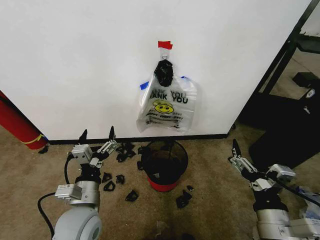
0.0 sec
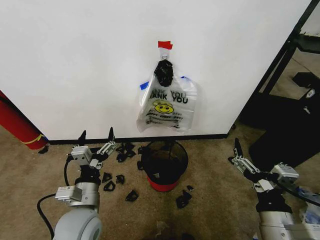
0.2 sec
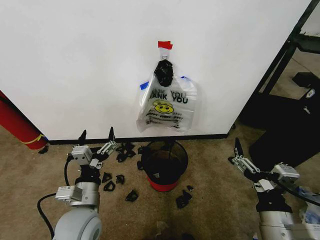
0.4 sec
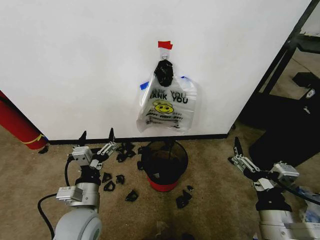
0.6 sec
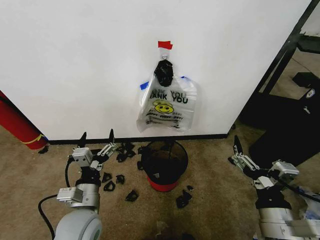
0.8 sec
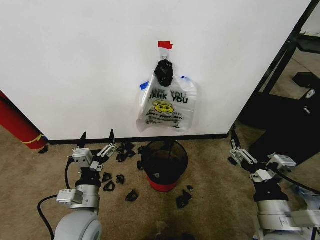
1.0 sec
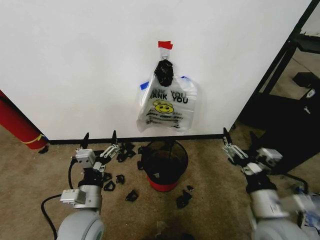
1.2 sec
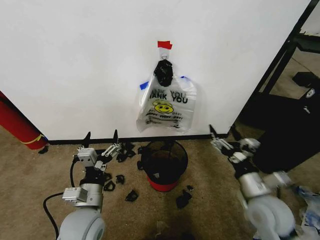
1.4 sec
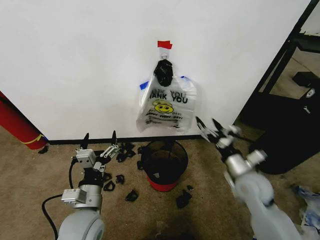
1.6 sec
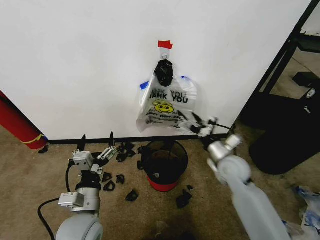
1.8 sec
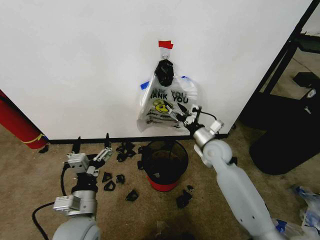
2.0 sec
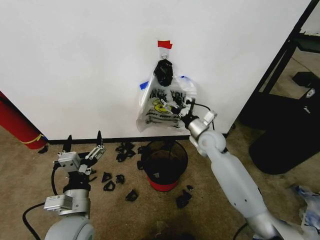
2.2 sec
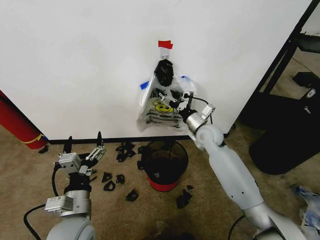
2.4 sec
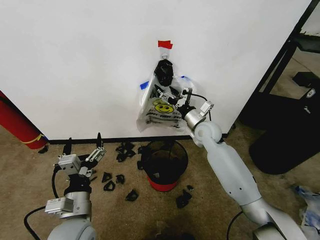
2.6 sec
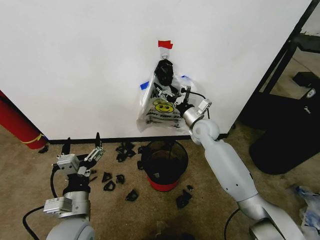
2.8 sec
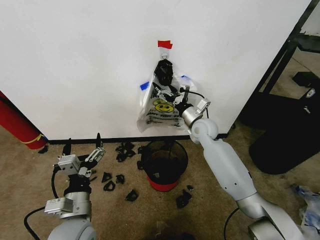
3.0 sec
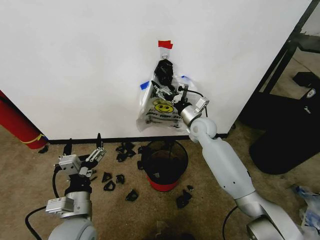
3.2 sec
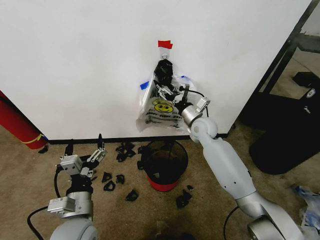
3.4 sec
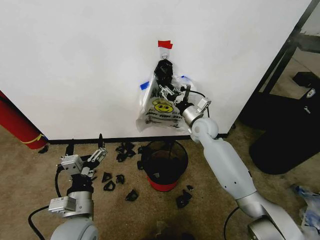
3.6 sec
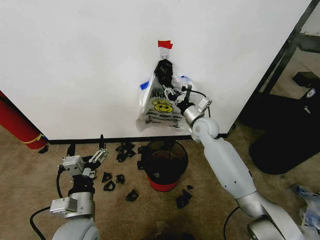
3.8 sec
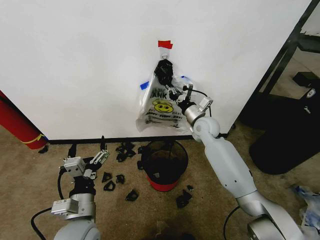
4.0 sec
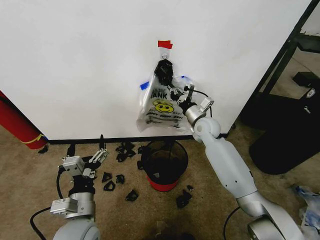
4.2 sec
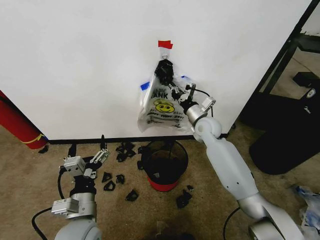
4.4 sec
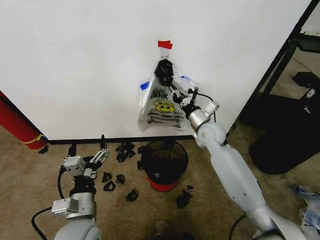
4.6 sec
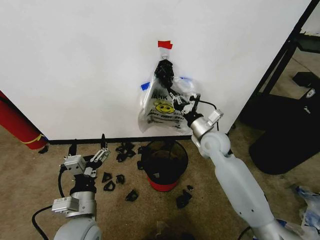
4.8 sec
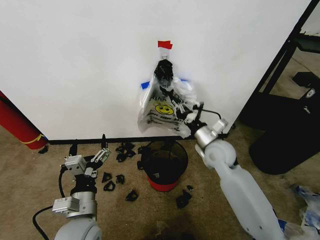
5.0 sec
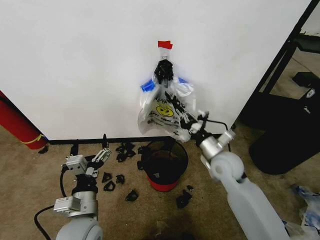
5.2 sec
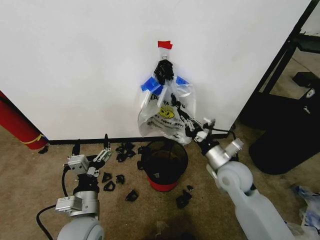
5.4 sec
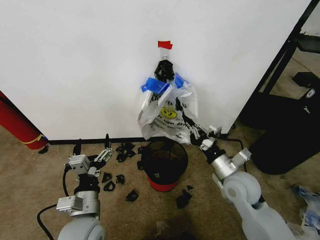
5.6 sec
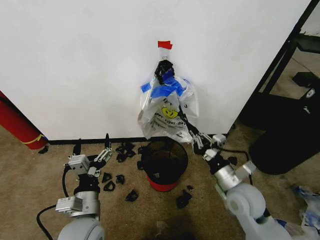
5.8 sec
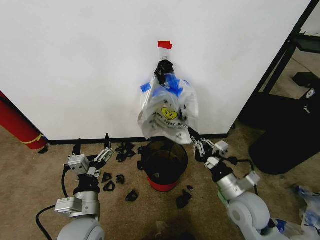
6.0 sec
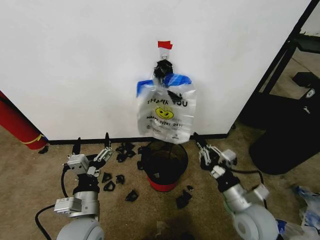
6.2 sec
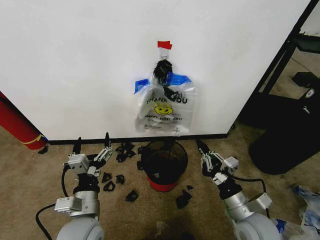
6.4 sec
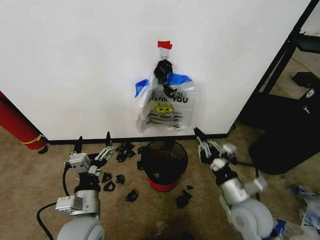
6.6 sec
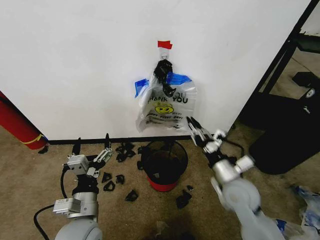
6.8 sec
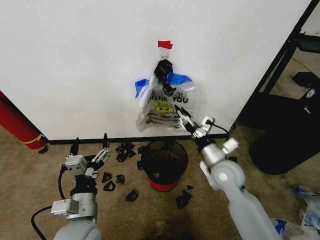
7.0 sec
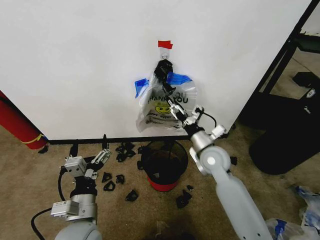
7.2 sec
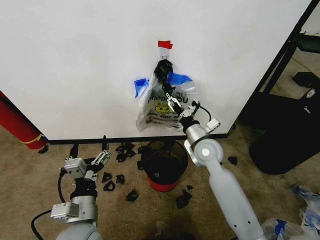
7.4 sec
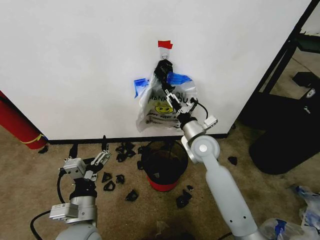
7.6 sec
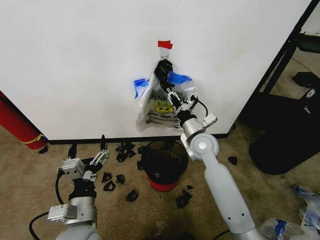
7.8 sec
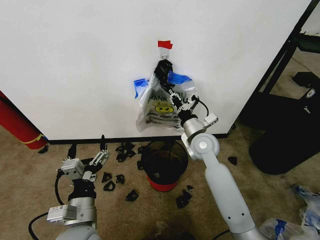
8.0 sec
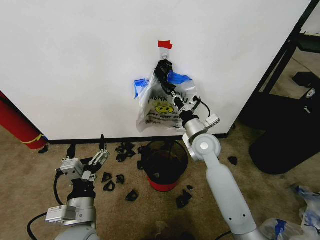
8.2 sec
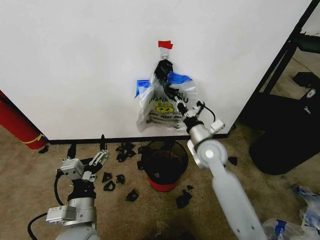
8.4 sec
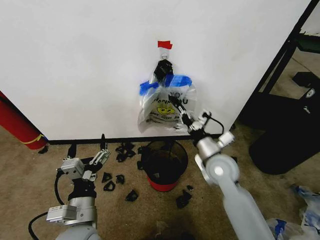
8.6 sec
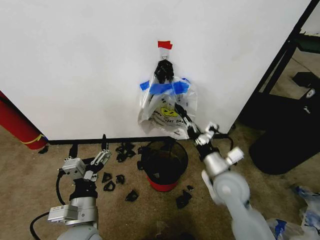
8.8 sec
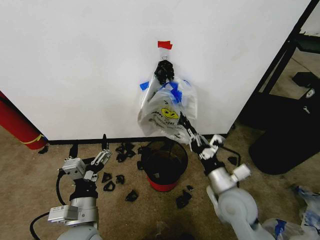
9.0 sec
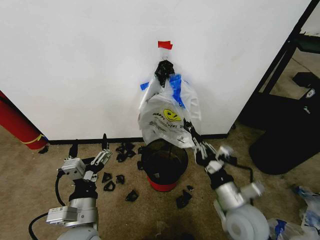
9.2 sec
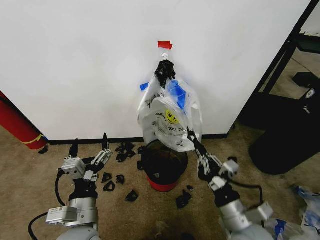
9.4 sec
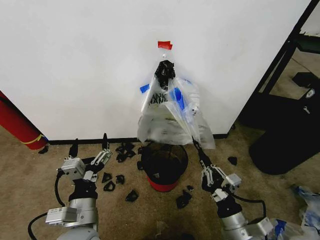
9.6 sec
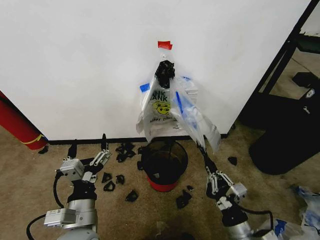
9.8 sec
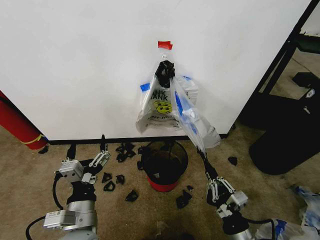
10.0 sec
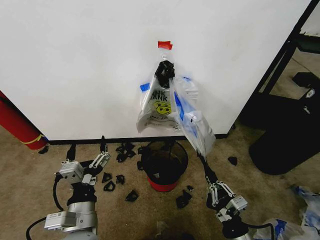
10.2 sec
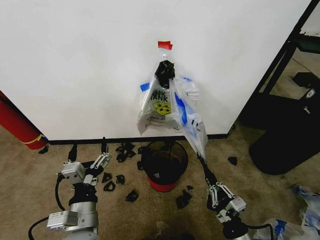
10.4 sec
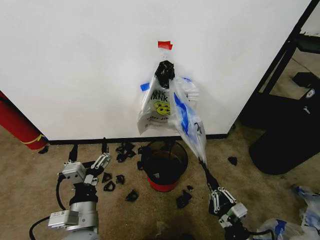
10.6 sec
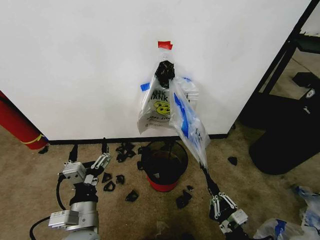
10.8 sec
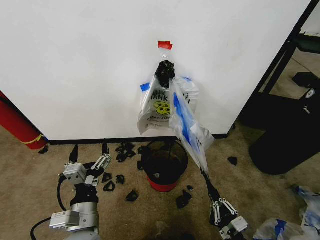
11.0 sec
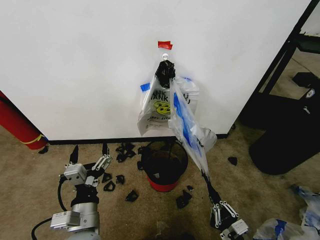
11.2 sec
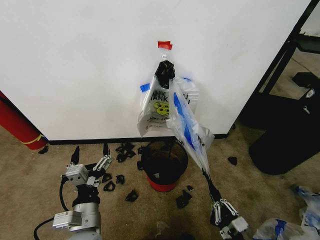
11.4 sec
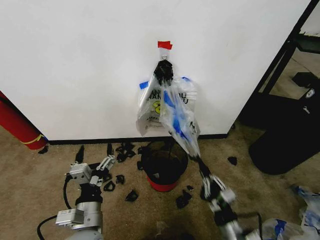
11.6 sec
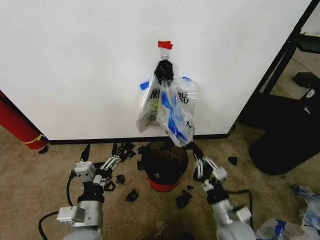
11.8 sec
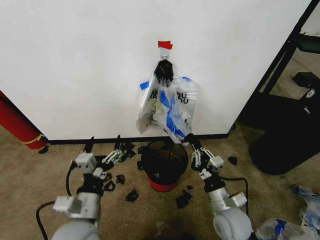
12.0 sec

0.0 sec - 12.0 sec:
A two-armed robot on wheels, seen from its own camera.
Task of the whole recording: Pick up the garbage bag from the wall and place it over the trash bin.
1.6 sec - 3.0 sec: The right gripper heads forward and to the left, covering approximately 25 cm.
3.0 sec - 4.4 sec: The right gripper closes up.
4.4 sec - 6.0 sec: The right gripper travels backward by approximately 25 cm.
6.0 sec - 7.6 sec: The right gripper is displaced forward and to the left by roughly 20 cm, and opens its fingers.
7.6 sec - 9.0 sec: The right gripper goes roughly 20 cm backward, and closes its fingers.
9.0 sec - 10.4 sec: The right gripper moves backward and downward, approximately 15 cm.
10.4 sec - 12.0 sec: The right gripper travels forward by about 10 cm.

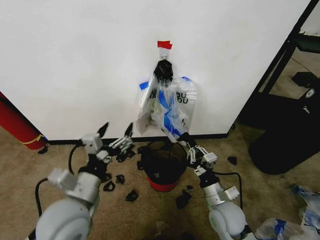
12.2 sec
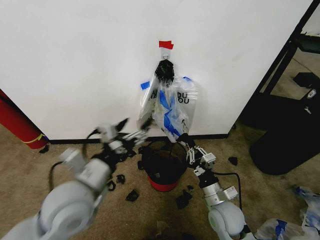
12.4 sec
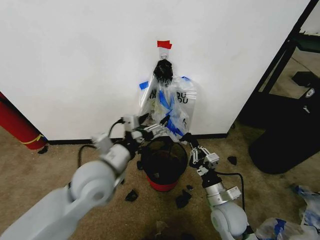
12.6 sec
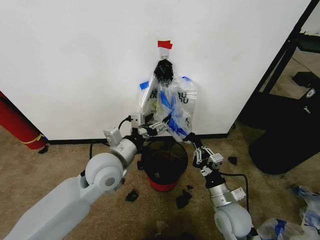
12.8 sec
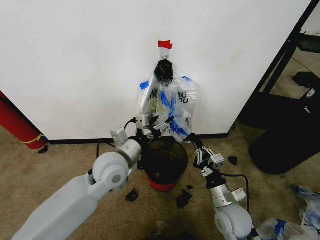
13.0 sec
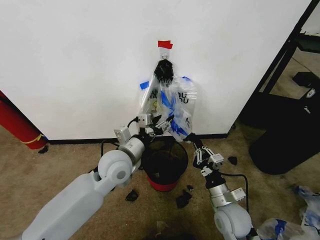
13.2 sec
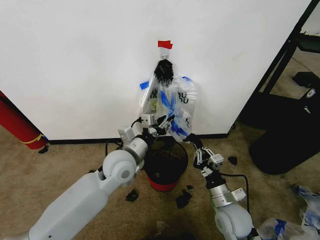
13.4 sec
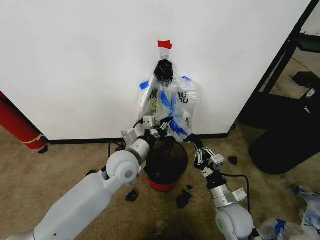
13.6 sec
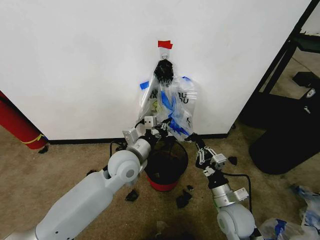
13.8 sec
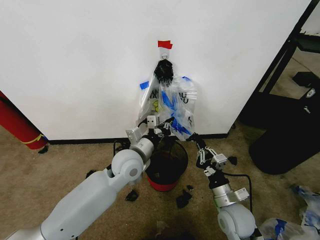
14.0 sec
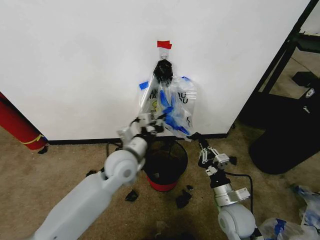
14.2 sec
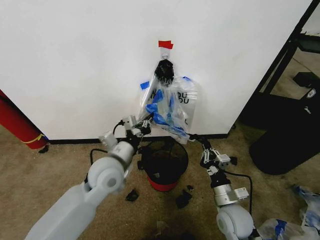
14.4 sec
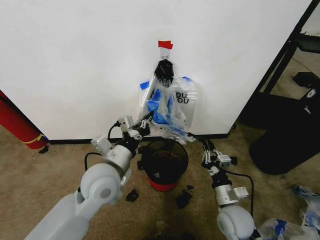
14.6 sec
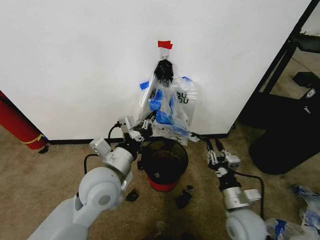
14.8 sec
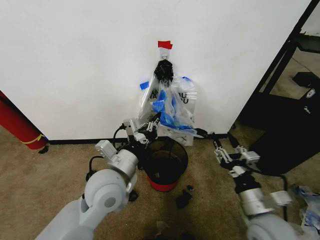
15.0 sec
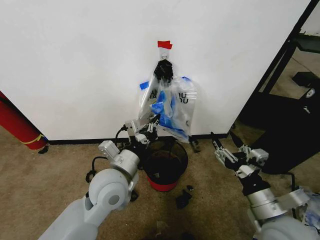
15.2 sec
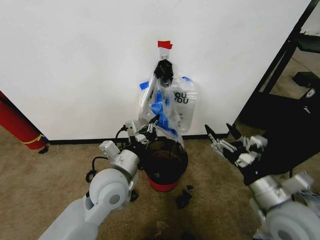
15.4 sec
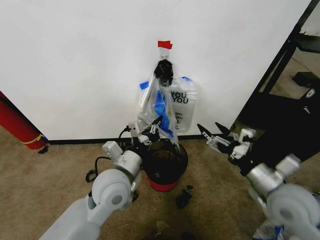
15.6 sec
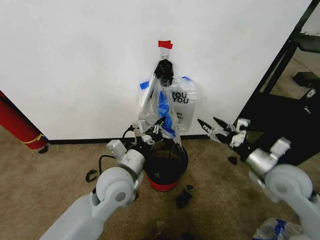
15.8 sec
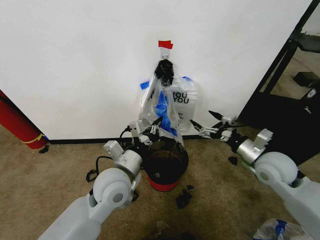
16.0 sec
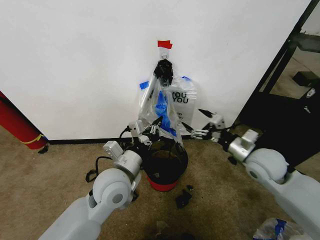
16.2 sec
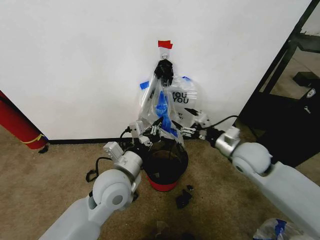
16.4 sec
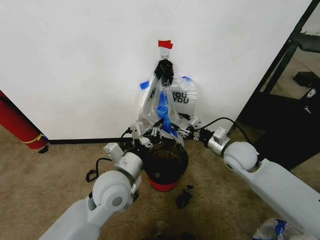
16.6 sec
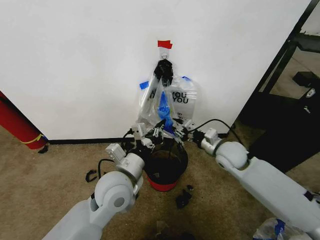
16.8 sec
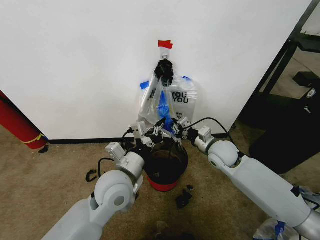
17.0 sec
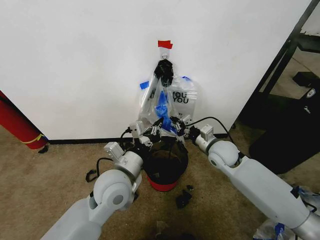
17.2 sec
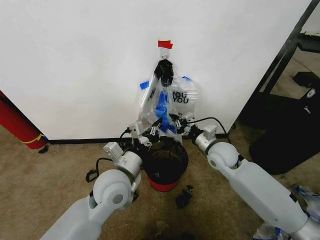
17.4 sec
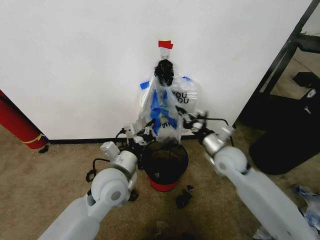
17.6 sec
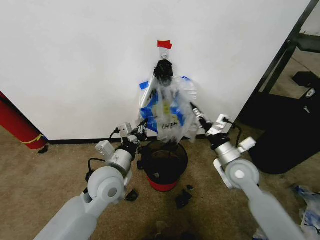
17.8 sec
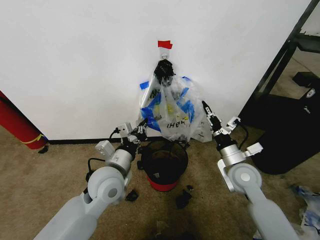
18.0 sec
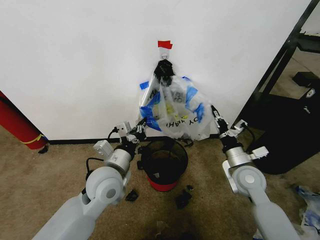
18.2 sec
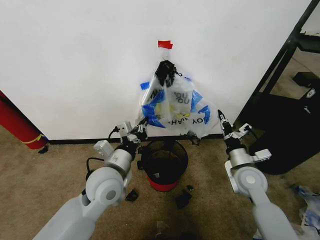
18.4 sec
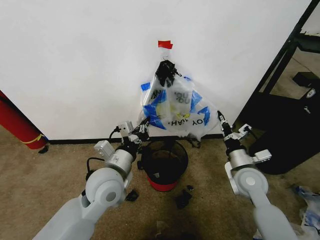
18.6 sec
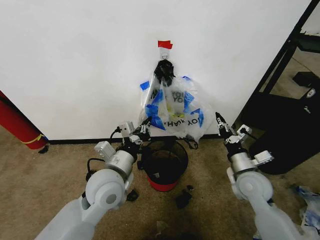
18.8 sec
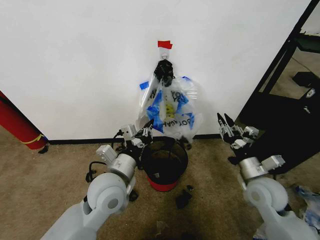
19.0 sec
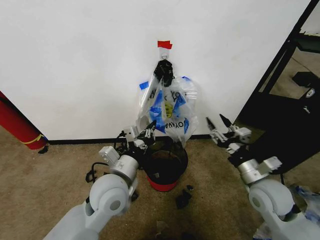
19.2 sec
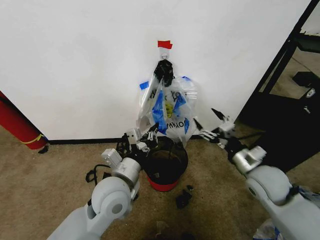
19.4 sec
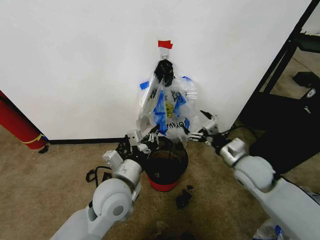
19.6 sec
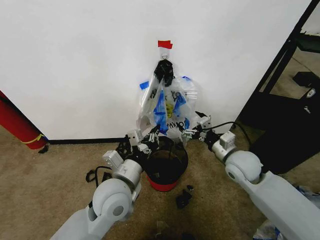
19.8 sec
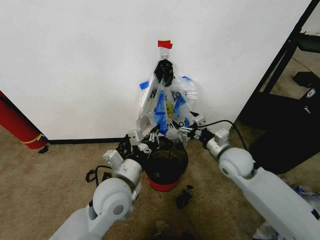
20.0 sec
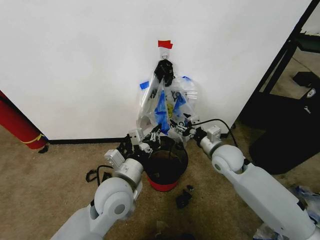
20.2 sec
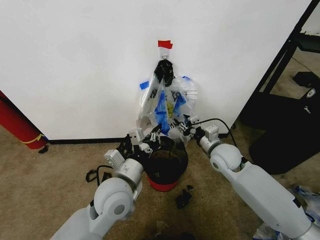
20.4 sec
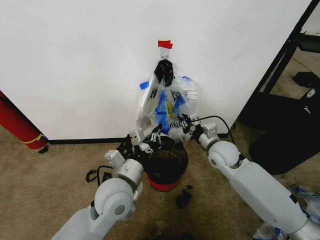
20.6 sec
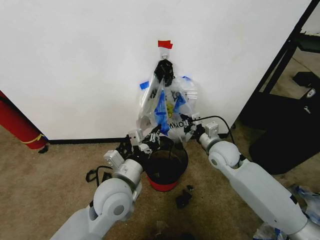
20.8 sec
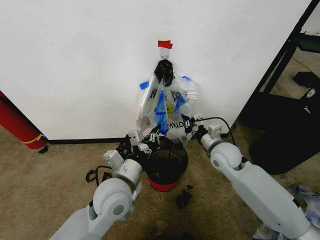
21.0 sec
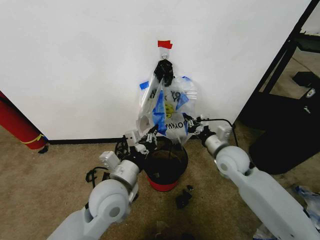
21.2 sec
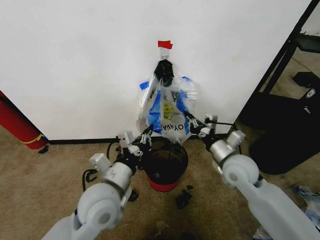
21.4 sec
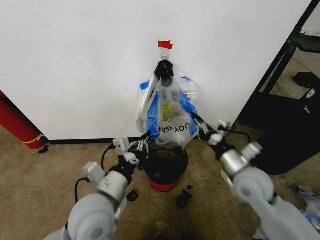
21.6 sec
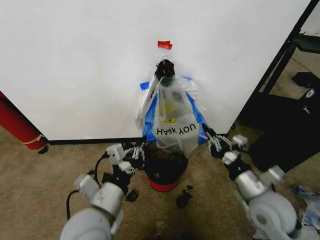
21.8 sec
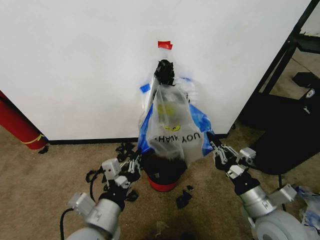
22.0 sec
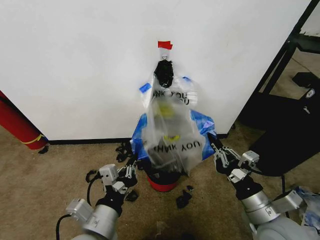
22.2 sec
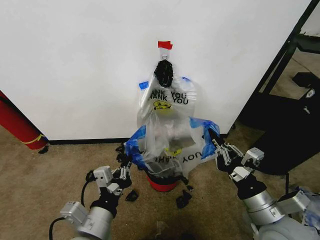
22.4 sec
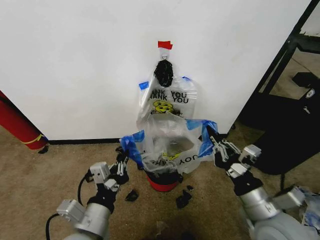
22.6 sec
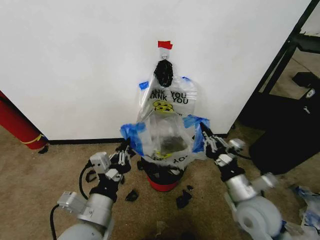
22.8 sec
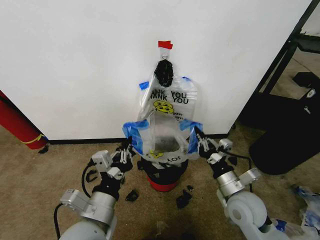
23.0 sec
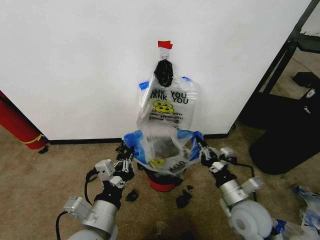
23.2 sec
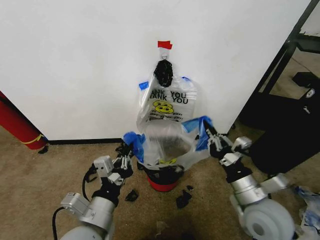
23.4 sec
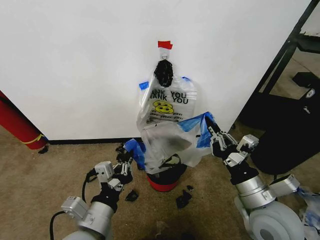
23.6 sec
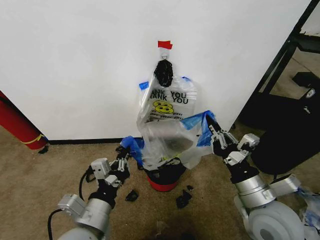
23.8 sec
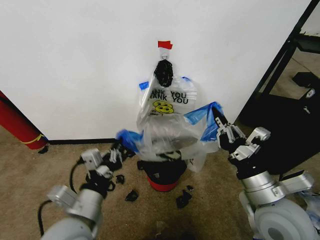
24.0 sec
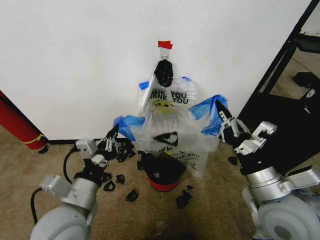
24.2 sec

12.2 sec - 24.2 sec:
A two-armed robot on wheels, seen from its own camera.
Task of the whole recording: Pick up the garbage bag from the wall and place it over the trash bin.
12.2 sec - 13.8 sec: The left gripper moves forward and to the right, some 20 cm, and closes its fingers.
13.8 sec - 15.2 sec: The left gripper travels backward by roughly 10 cm, while the right gripper is displaced upward, backward and to the right by about 15 cm, and opens its fingers.
15.2 sec - 16.6 sec: The right gripper is displaced forward by about 20 cm.
16.6 sec - 18.2 sec: The right gripper moves backward, some 5 cm, and closes up.
18.2 sec - 19.8 sec: The right gripper moves approximately 5 cm backward and comes back, and opens up.
19.8 sec - 21.2 sec: The right gripper closes.
21.2 sec - 22.6 sec: The right gripper moves backward, about 20 cm. Meanwhile the left gripper moves backward, about 10 cm.
22.6 sec - 24.2 sec: The right gripper heads upward, covering roughly 5 cm; the left gripper ends up roughly 5 cm from where it was.
